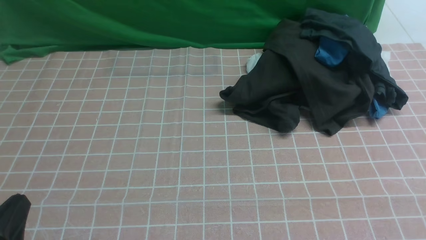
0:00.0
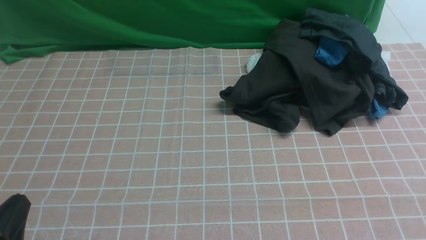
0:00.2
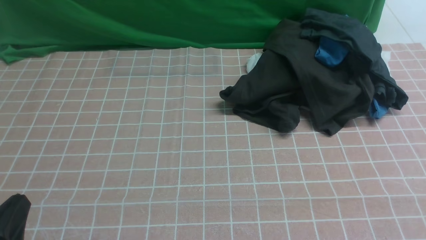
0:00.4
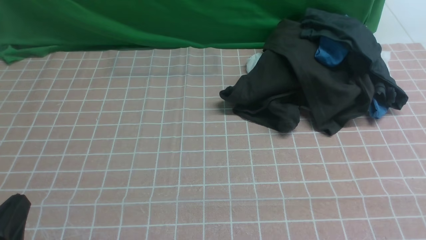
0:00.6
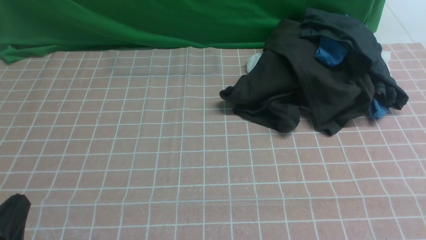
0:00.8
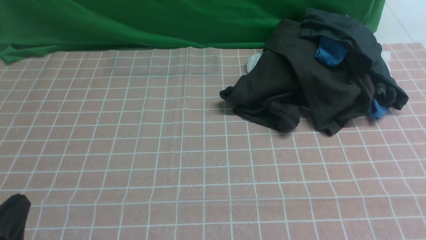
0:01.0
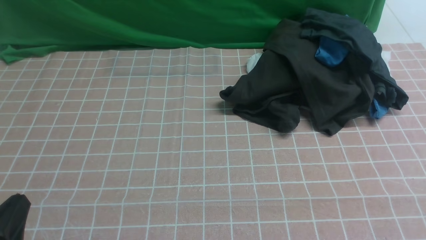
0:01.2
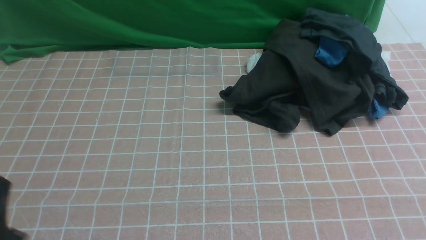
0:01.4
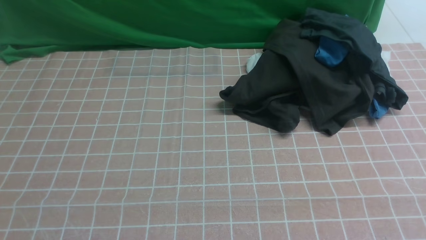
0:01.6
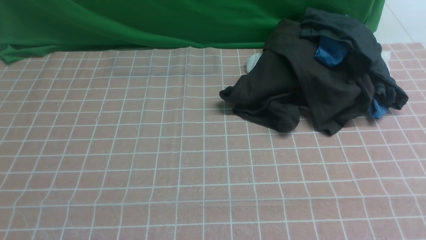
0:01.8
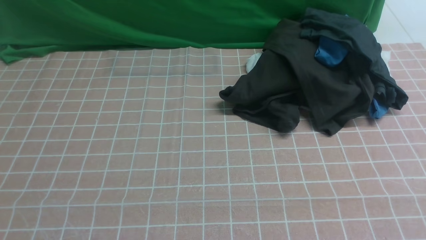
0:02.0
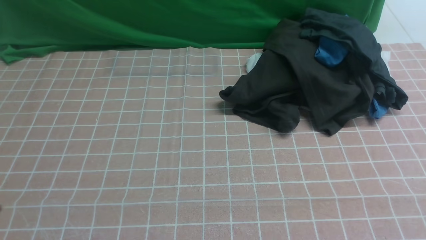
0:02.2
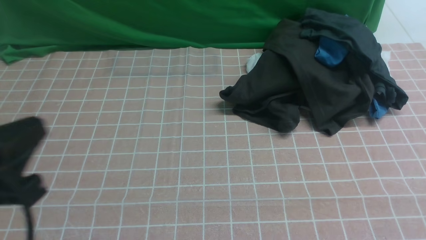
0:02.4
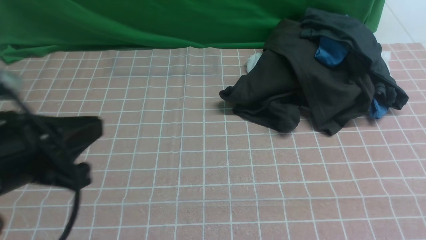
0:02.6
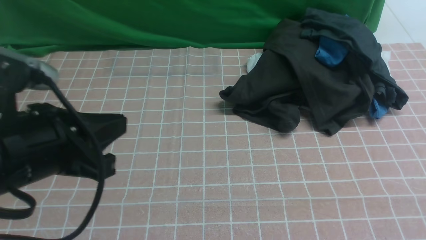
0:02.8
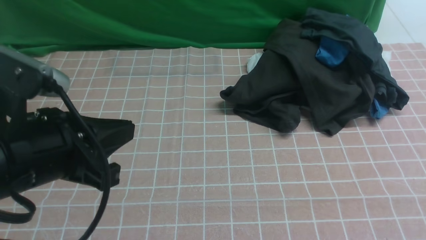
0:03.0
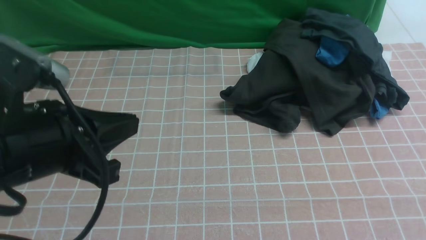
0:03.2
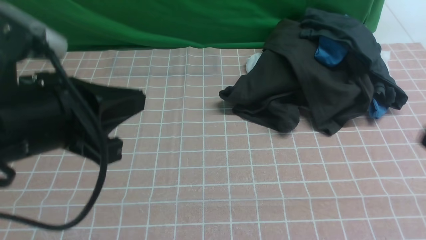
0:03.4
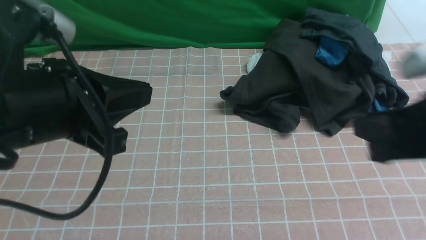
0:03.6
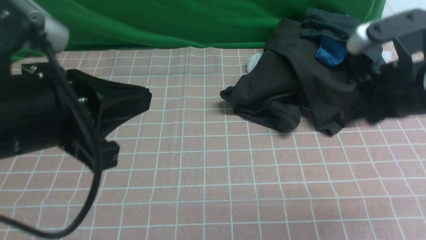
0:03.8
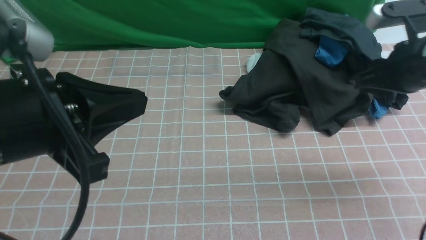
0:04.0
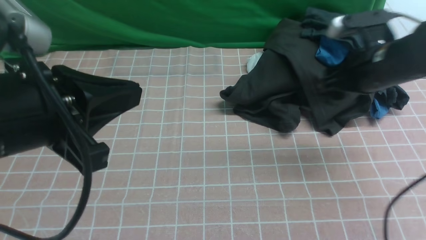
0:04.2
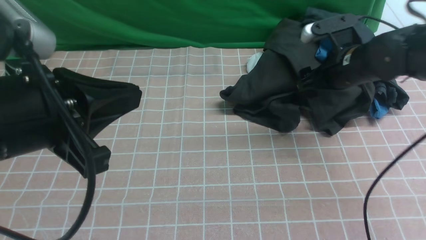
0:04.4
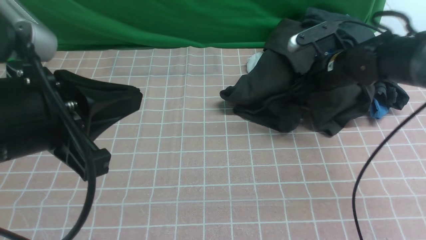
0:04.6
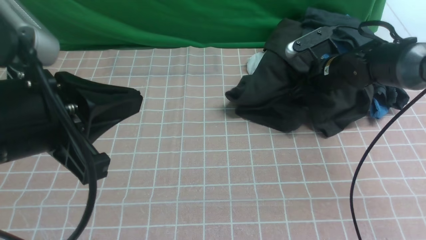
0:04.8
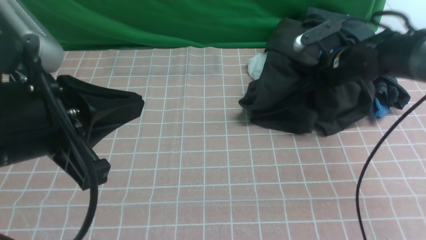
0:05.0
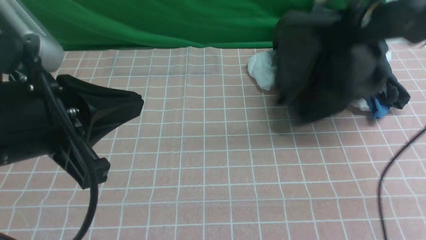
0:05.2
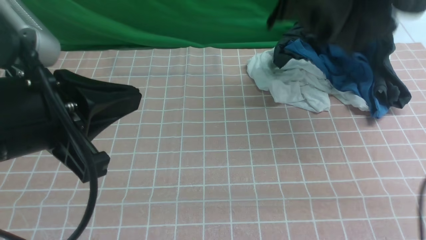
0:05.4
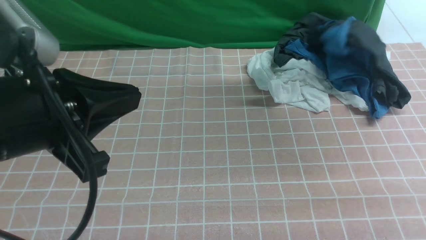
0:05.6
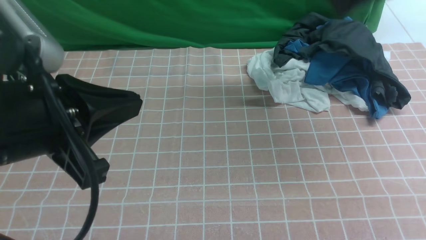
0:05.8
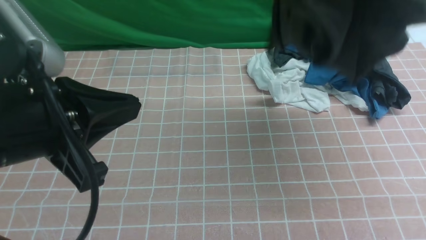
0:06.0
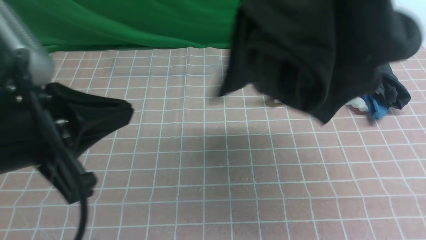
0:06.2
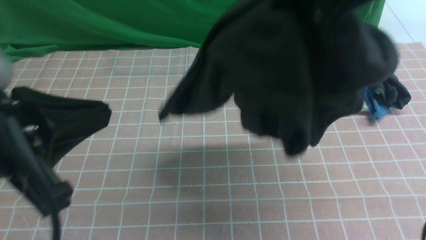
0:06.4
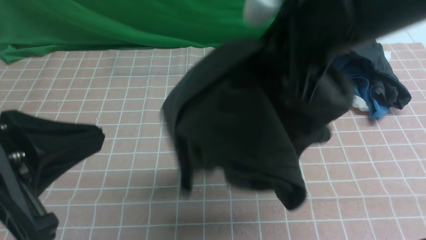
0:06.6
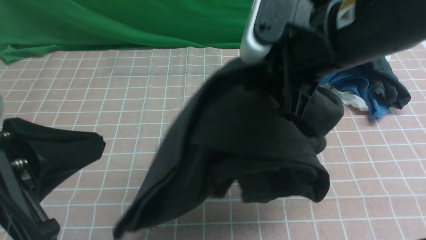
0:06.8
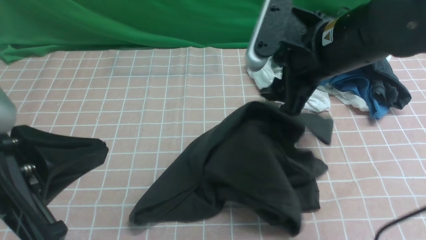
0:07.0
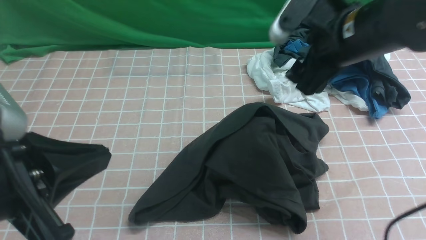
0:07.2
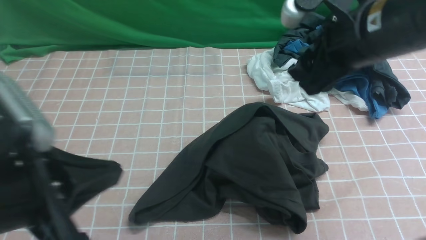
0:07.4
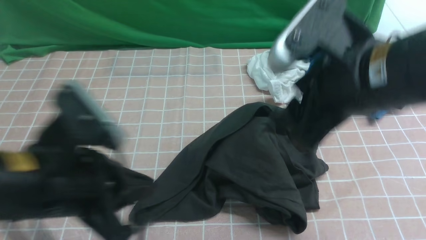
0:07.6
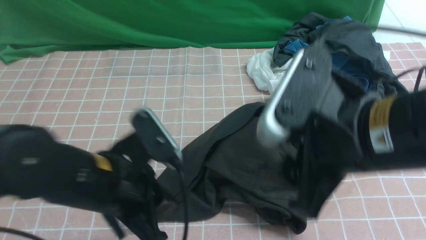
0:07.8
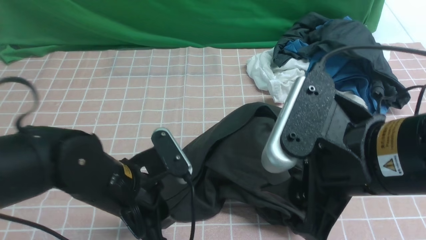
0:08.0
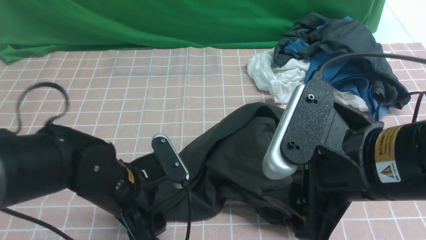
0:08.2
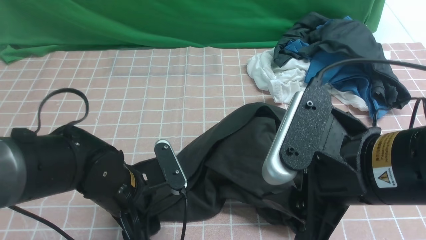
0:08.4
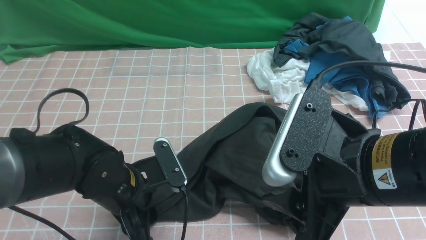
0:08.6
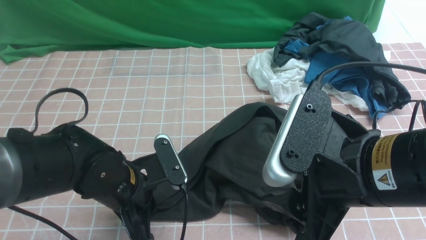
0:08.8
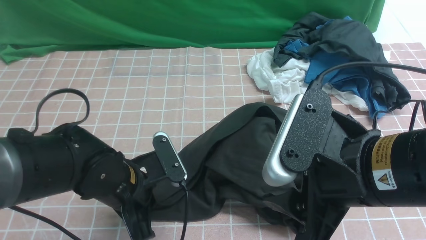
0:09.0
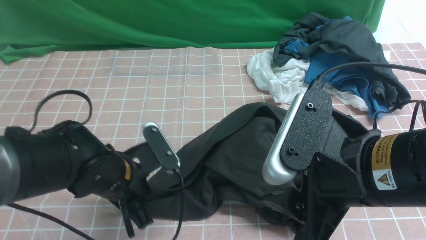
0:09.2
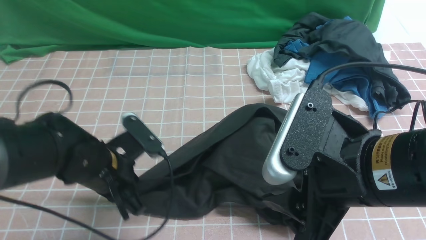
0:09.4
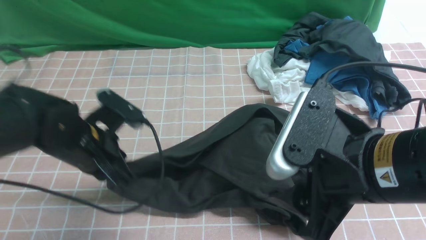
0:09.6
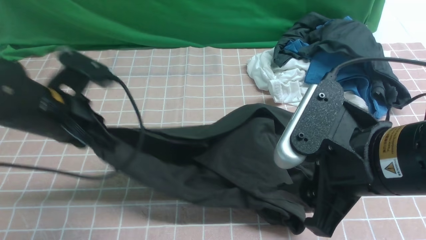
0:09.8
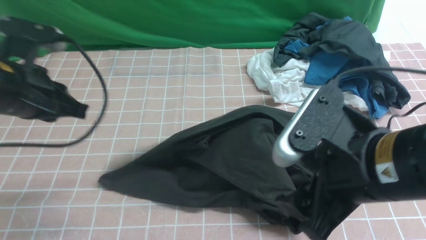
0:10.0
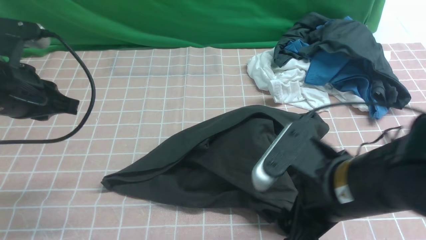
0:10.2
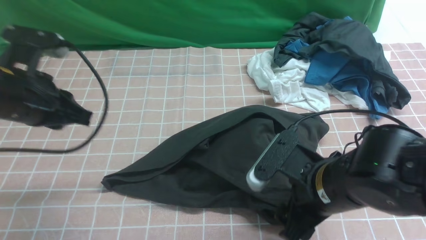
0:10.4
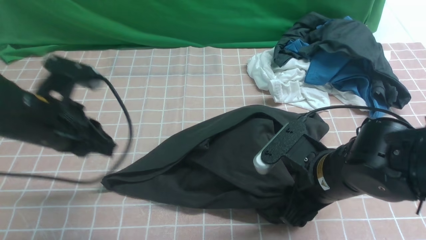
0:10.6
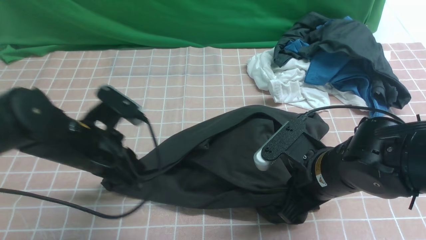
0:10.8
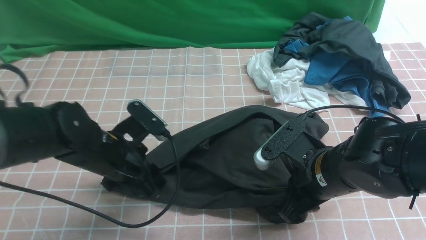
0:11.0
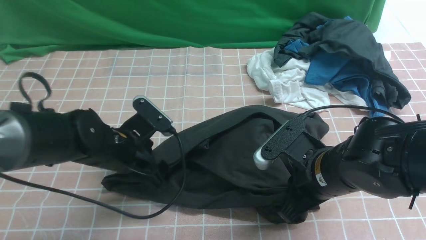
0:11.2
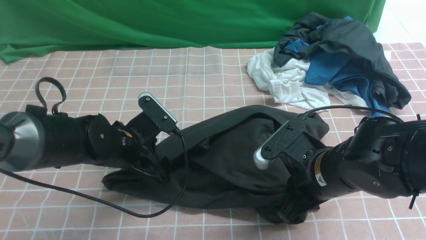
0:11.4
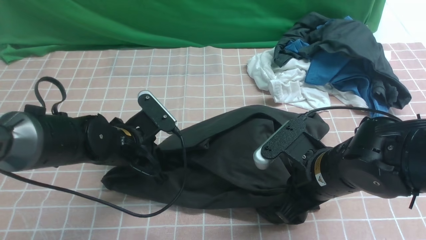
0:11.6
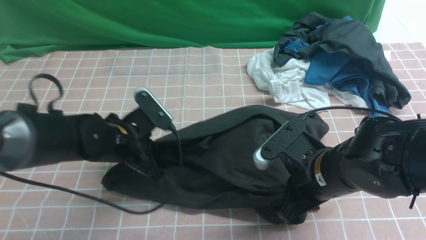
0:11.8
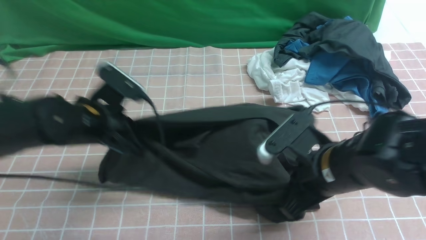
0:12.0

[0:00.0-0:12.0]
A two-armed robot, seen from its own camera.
0:01.6 to 0:03.0: The left gripper is displaced upward, forward and to the right by approximately 15 cm.
0:03.0 to 0:04.4: The right gripper travels forward by approximately 35 cm, and opens.
0:04.4 to 0:06.0: The right gripper is displaced upward by approximately 25 cm, and closes.
0:06.0 to 0:07.6: The right gripper heads downward, backward and to the left, covering about 20 cm, and opens up. The left gripper goes approximately 10 cm downward.
0:07.6 to 0:09.0: The right gripper travels backward by about 5 cm, while the left gripper moves downward and forward, about 15 cm, and opens, then closes again.
0:09.0 to 0:10.4: The right gripper shifts approximately 10 cm downward; the left gripper goes approximately 15 cm upward and to the left.
0:10.4 to 0:12.0: The right gripper closes. The left gripper moves downward, some 5 cm, and opens, then closes once more.

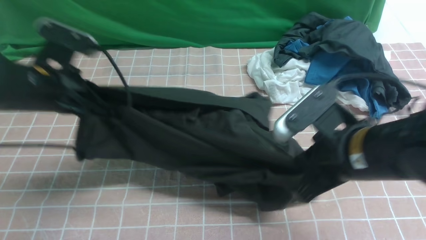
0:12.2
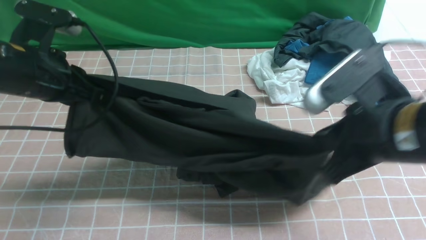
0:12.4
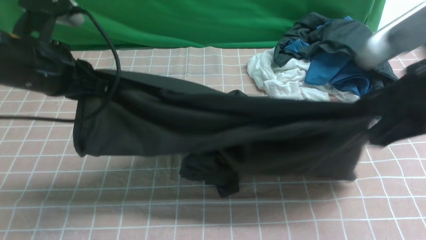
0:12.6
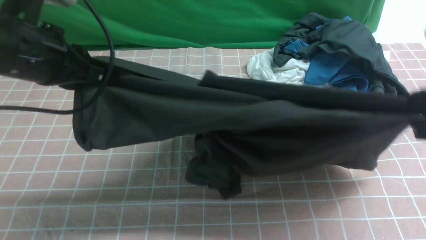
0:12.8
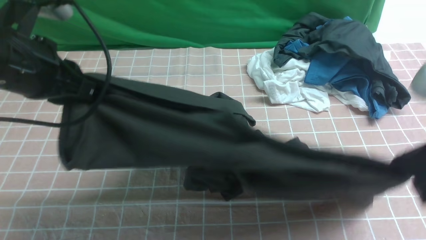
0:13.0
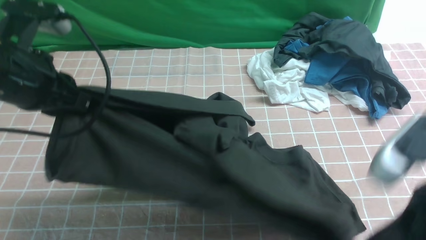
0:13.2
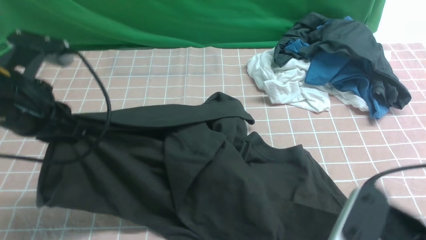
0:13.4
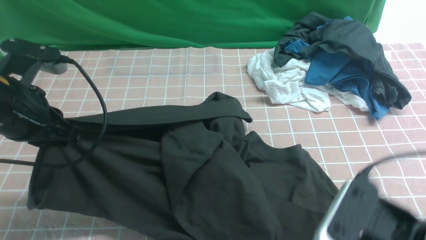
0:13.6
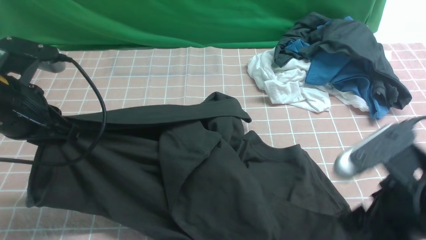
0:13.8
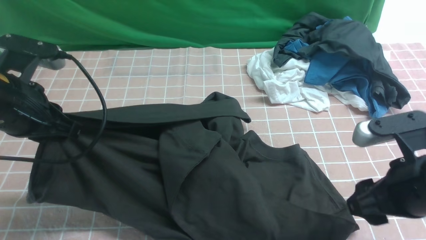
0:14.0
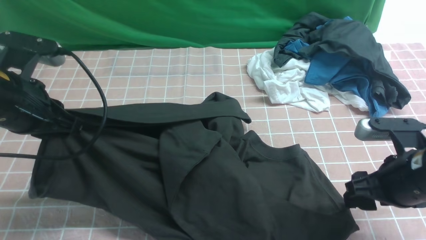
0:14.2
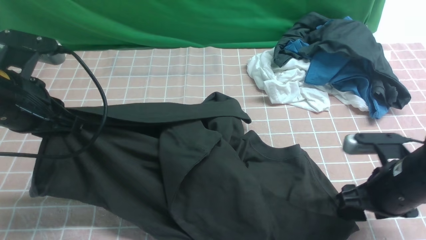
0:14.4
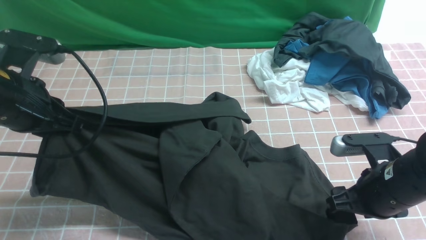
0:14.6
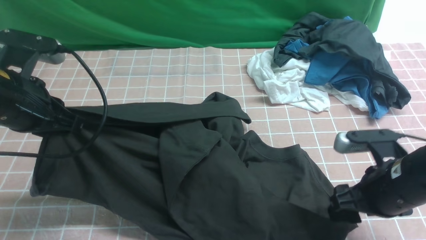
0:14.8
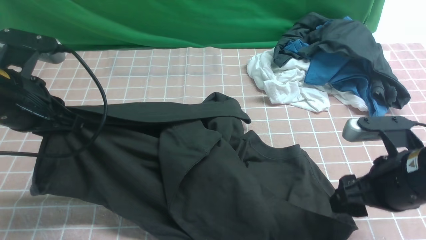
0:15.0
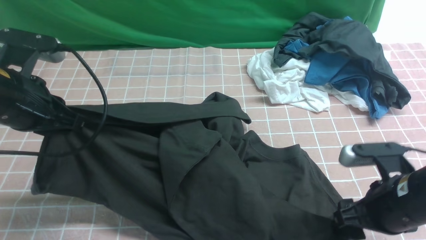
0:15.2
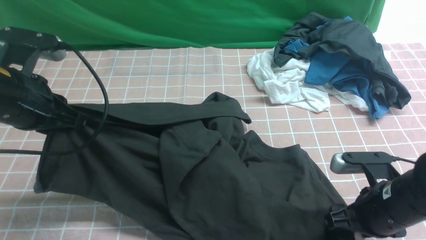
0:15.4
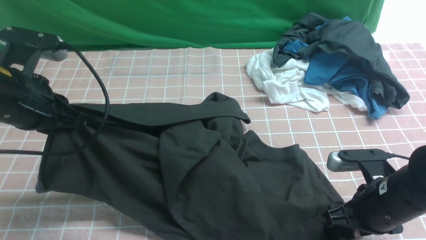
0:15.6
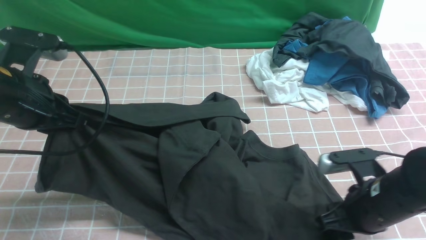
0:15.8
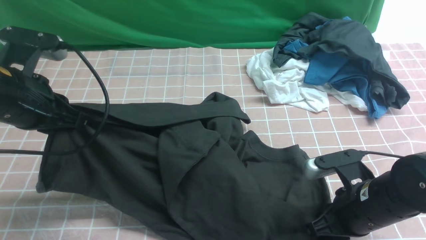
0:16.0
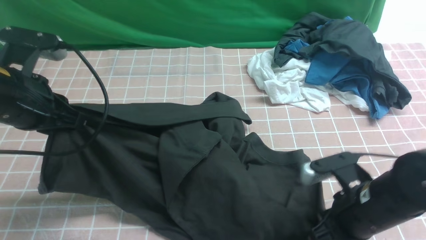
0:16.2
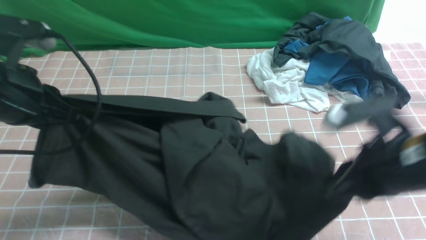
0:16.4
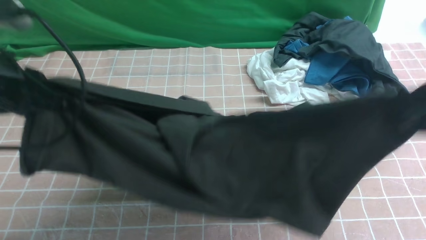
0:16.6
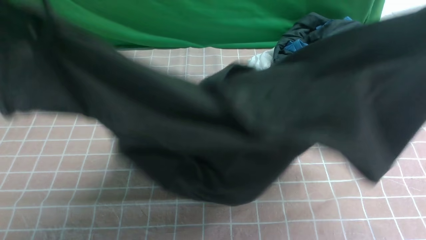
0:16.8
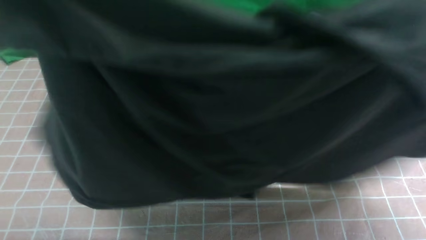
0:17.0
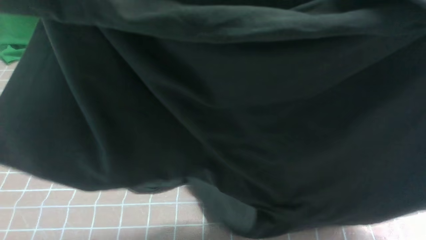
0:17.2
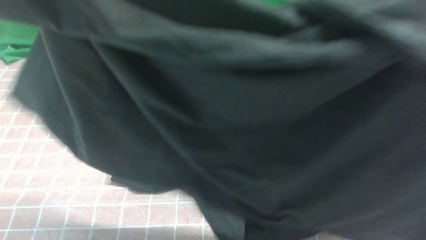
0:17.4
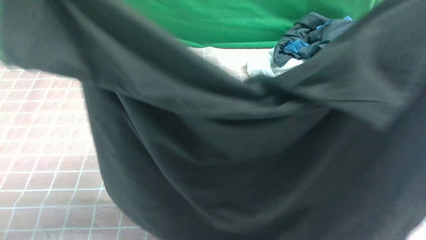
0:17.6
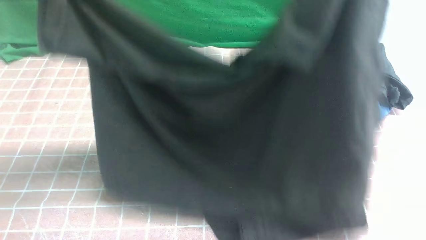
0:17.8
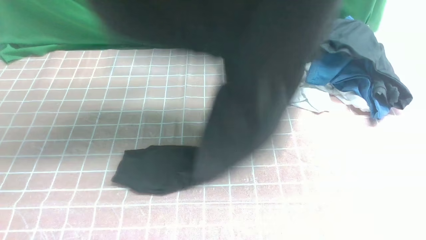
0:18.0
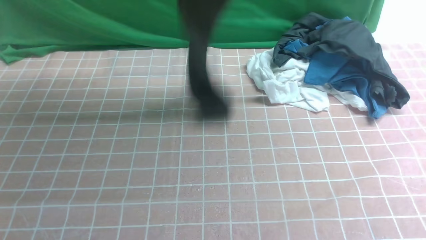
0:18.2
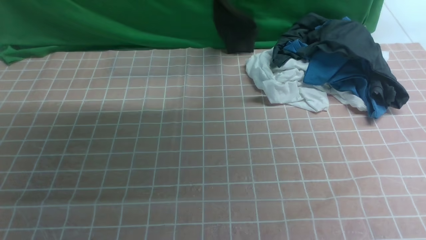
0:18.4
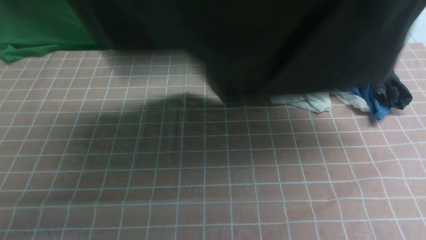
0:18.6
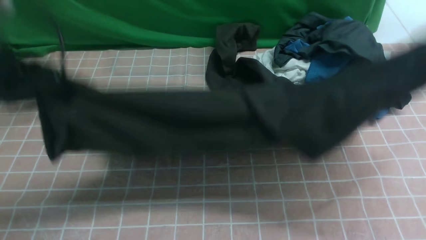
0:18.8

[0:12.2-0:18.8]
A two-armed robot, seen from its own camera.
0:12.2 to 0:13.8: The left gripper ends up about 5 cm from where it was. The right gripper shifts about 5 cm backward, and opens.
0:13.8 to 0:15.4: The right gripper heads downward and forward, covering approximately 10 cm.
0:15.4 to 0:17.2: The left gripper is displaced upward by some 25 cm. Meanwhile the right gripper shifts some 40 cm upward, and closes its fingers.
0:17.2 to 0:18.8: The left gripper moves up and down over about 30 cm, changing direction 2 times. Meanwhile the right gripper is displaced downward and forward by about 20 cm.
